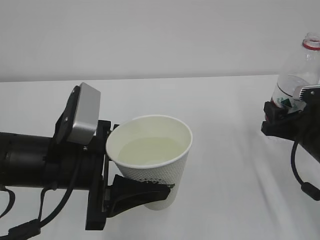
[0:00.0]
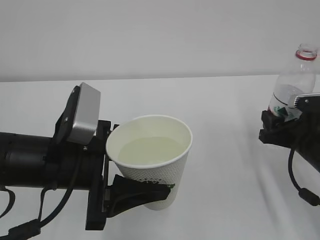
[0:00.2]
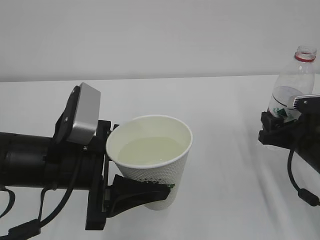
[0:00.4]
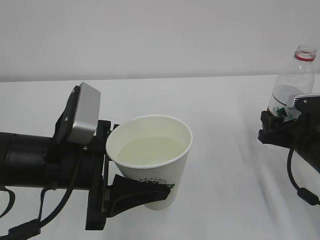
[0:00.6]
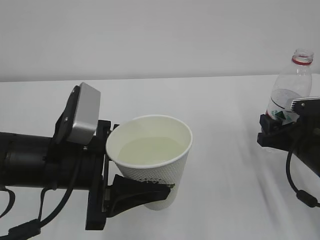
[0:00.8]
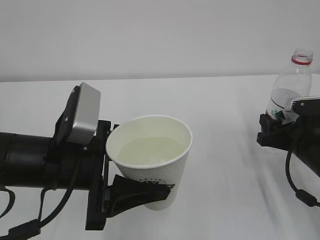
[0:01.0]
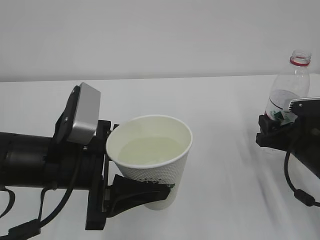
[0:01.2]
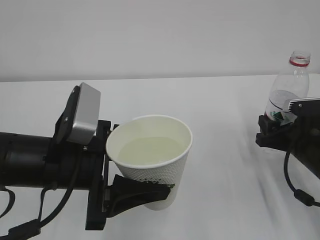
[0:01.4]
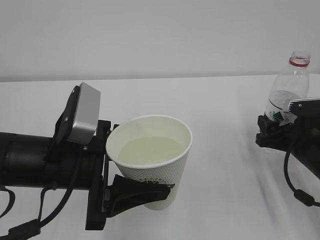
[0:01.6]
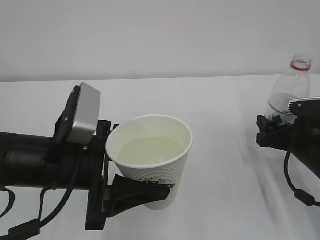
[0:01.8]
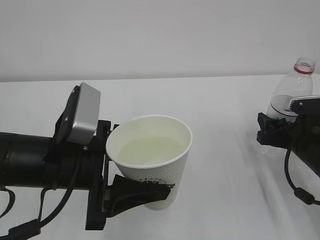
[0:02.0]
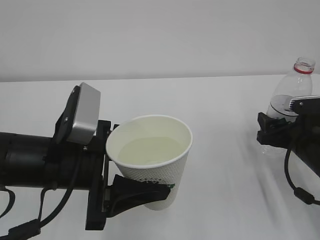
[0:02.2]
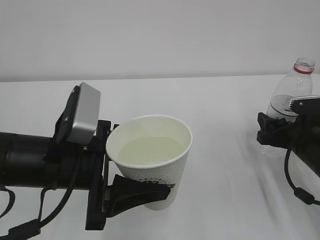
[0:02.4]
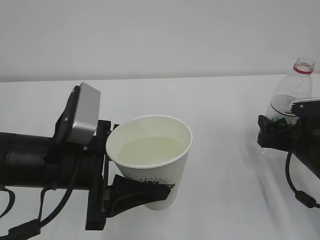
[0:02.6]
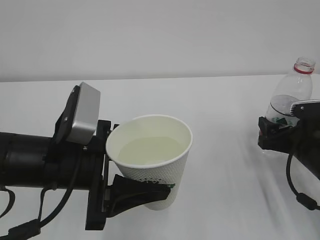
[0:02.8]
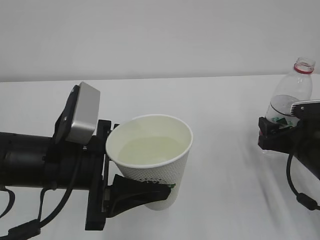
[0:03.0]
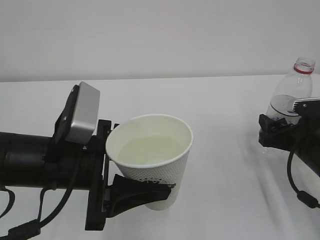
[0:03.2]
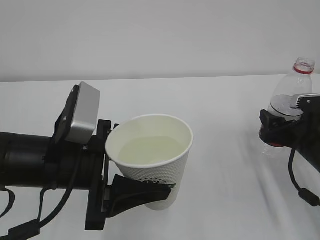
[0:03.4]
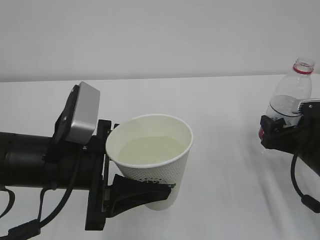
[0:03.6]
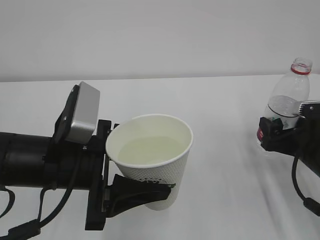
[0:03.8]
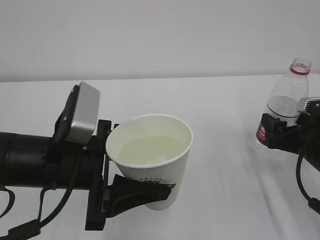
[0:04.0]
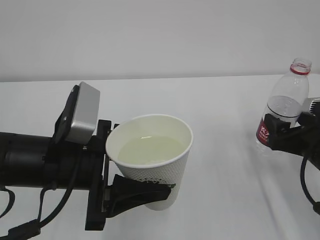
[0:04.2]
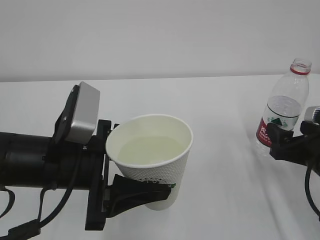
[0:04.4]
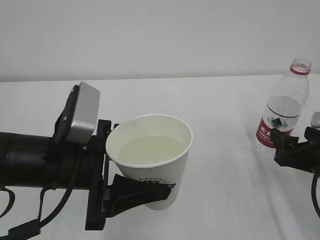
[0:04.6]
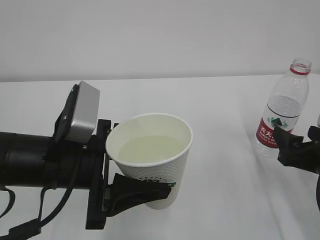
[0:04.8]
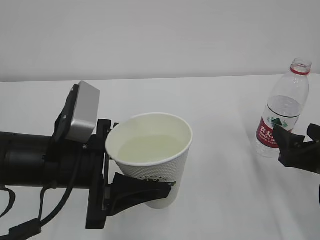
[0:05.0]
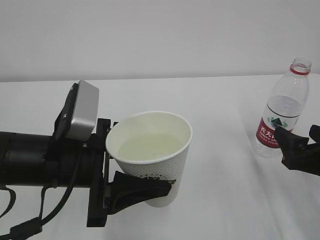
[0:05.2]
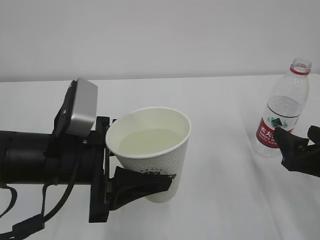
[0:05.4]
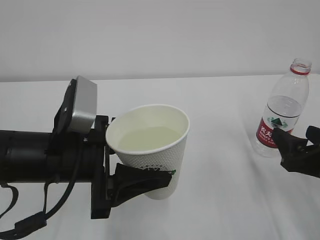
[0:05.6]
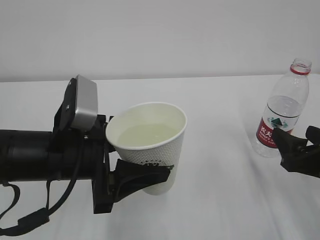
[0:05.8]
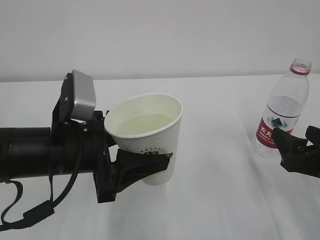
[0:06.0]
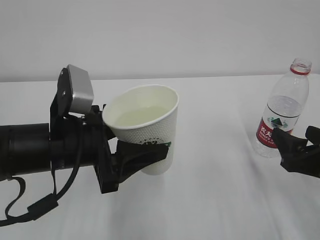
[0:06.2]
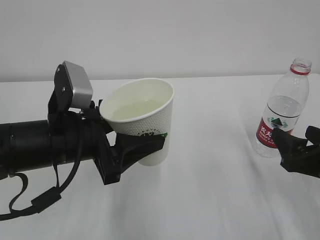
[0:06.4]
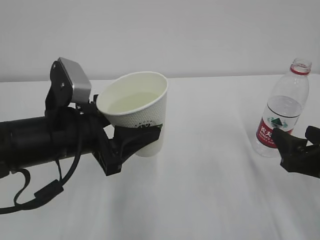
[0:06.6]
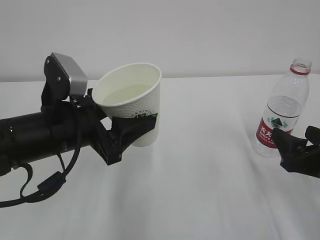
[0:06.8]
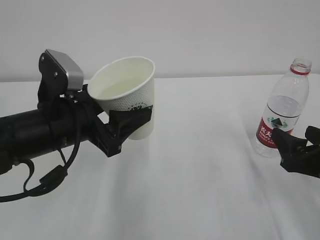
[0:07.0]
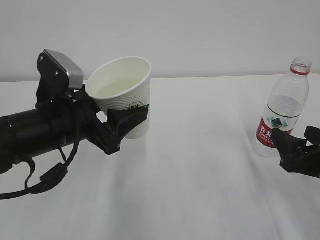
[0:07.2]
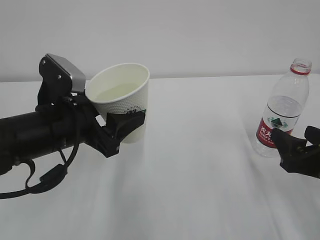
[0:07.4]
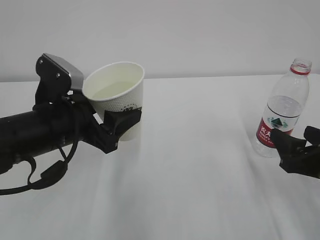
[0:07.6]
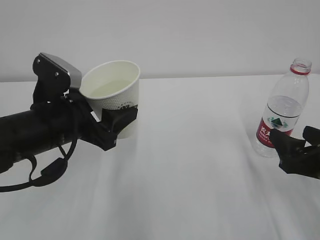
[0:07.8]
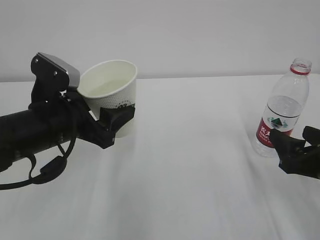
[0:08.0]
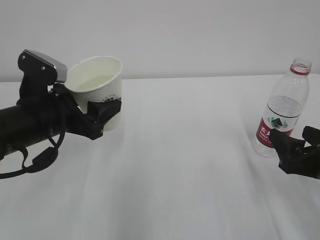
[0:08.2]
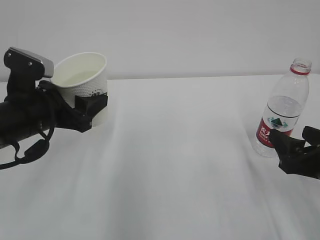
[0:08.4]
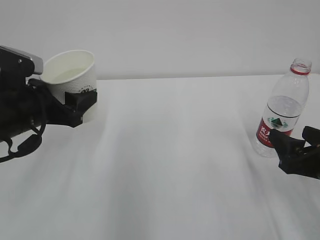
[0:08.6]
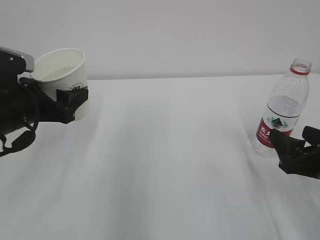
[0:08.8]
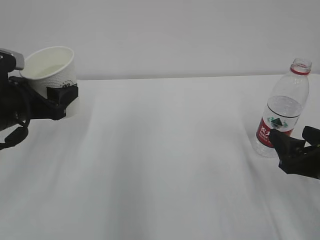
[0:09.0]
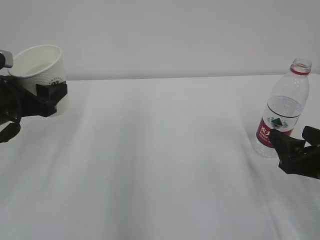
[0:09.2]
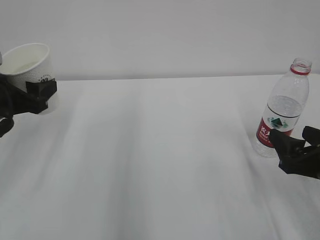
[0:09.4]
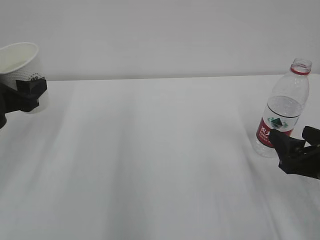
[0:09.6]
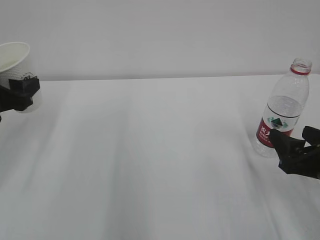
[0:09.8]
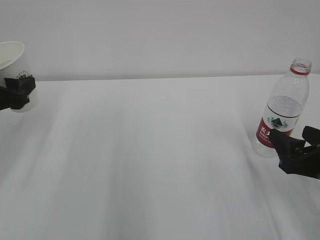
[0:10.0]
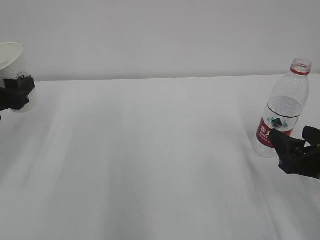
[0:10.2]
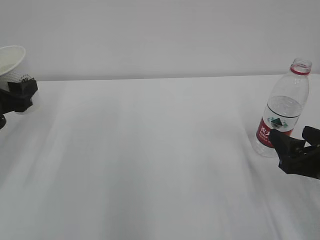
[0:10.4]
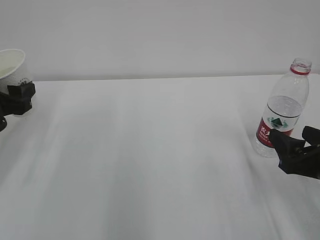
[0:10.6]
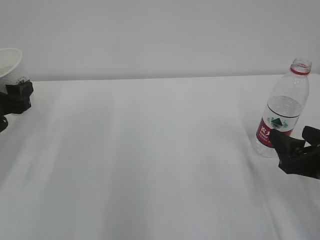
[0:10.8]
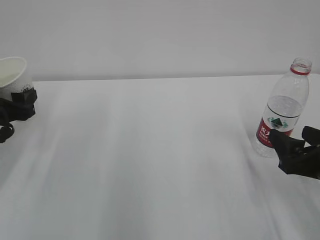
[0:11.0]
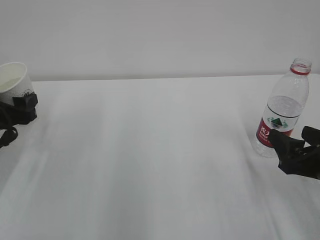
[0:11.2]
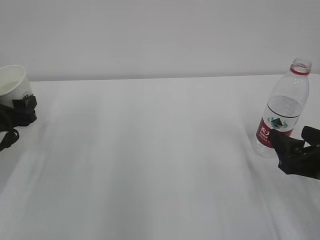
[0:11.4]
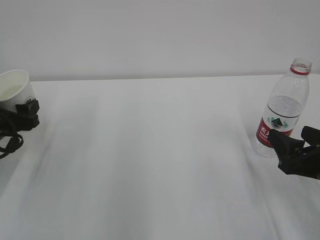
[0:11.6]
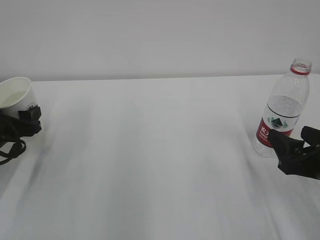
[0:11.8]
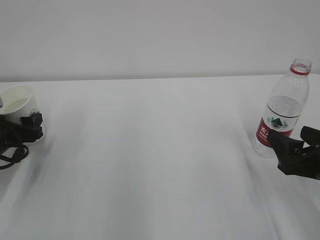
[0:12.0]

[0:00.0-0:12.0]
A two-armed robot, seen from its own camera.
0:00.0 to 0:01.6: The grippers move only a little.
0:01.6 to 0:03.0: The right gripper opens up.
0:03.0 to 0:04.4: The grippers stay close to where they were, moving slightly.
0:04.4 to 0:06.0: There are only small adjustments of the grippers.
0:07.6 to 0:09.0: The left gripper travels to the left by some 10 cm.
0:09.0 to 0:10.4: The left gripper goes some 5 cm to the left.
0:10.4 to 0:12.0: The left gripper shifts about 10 cm downward.

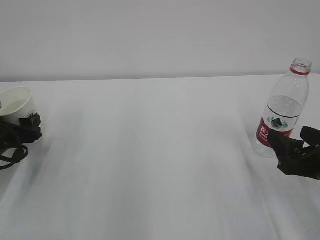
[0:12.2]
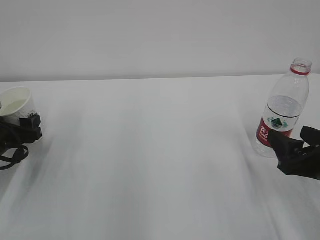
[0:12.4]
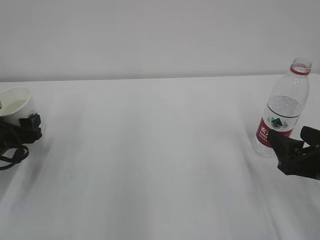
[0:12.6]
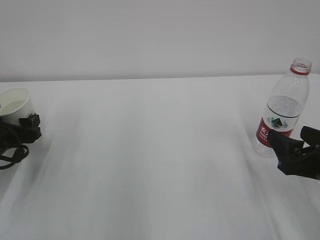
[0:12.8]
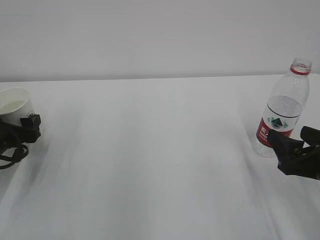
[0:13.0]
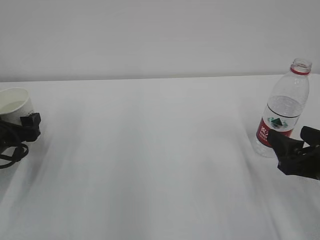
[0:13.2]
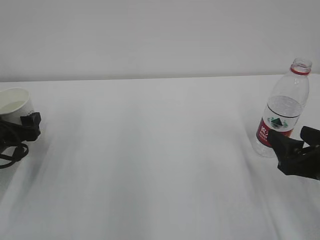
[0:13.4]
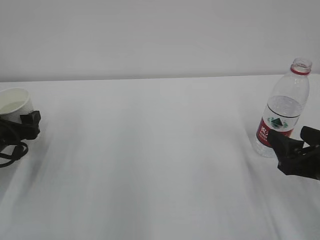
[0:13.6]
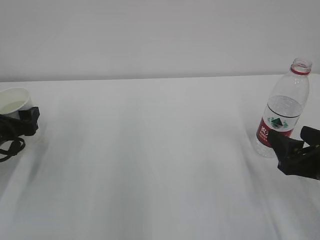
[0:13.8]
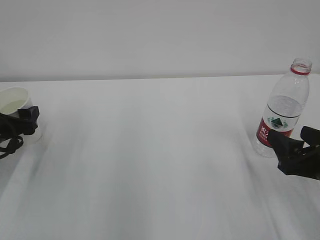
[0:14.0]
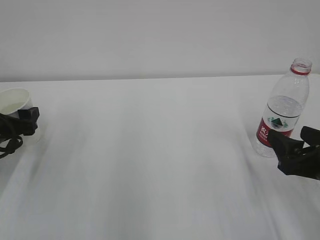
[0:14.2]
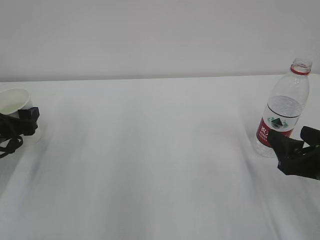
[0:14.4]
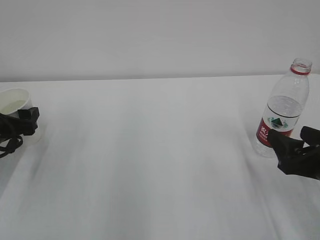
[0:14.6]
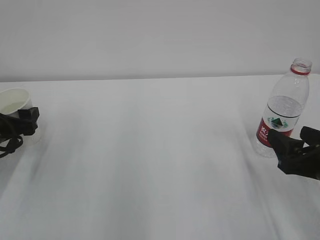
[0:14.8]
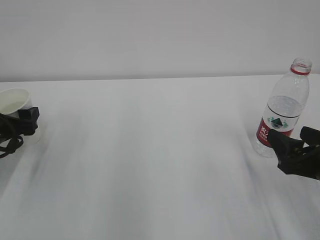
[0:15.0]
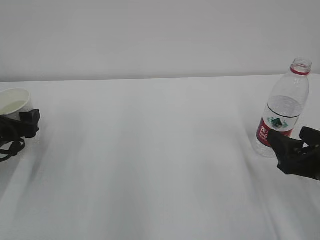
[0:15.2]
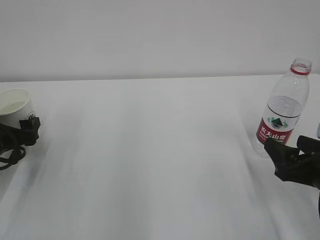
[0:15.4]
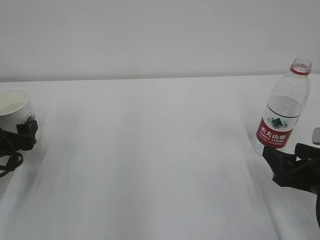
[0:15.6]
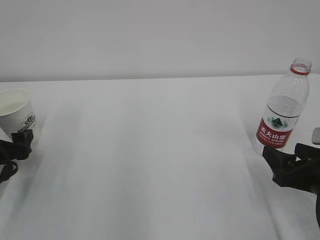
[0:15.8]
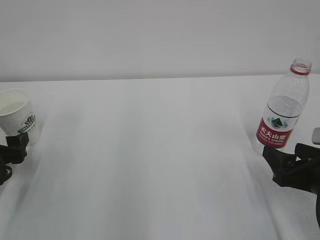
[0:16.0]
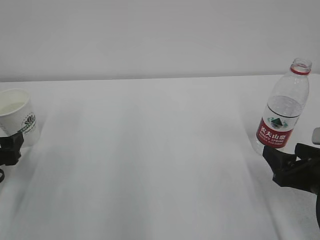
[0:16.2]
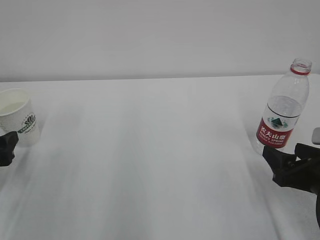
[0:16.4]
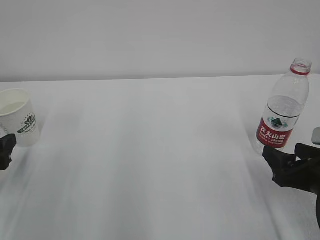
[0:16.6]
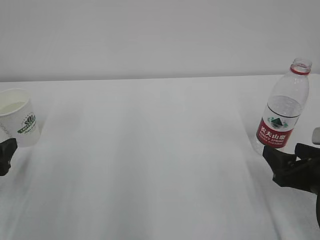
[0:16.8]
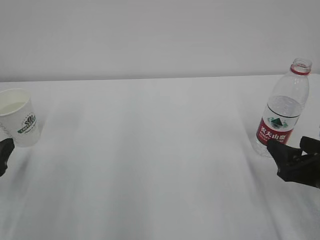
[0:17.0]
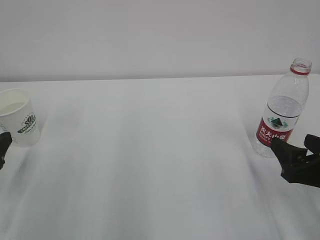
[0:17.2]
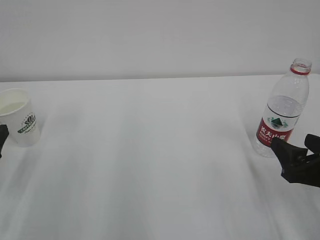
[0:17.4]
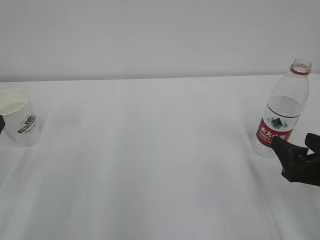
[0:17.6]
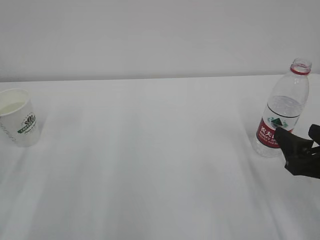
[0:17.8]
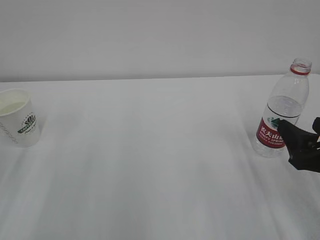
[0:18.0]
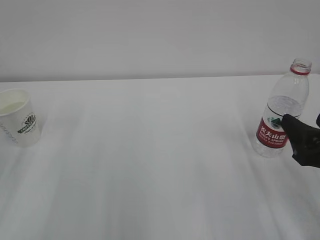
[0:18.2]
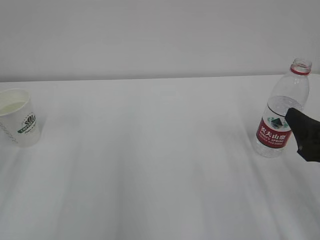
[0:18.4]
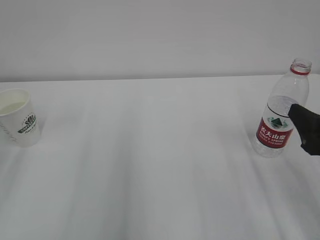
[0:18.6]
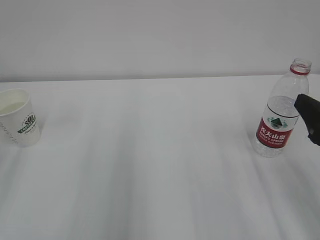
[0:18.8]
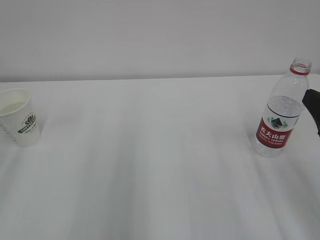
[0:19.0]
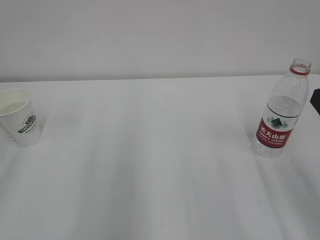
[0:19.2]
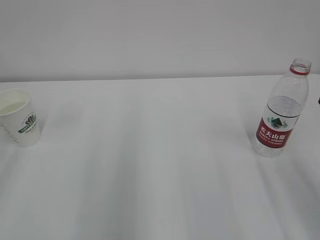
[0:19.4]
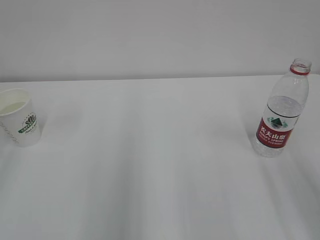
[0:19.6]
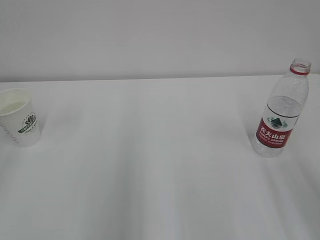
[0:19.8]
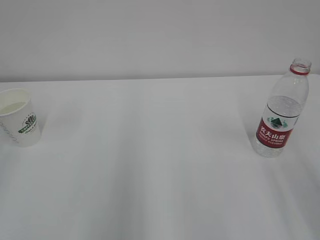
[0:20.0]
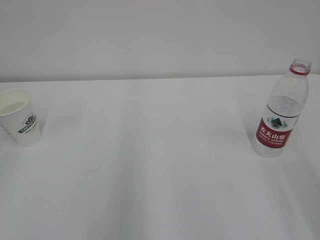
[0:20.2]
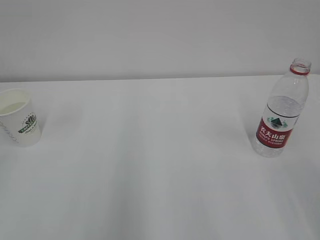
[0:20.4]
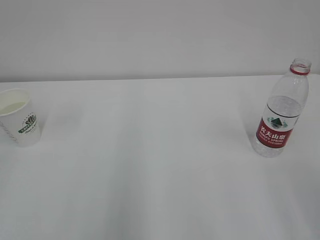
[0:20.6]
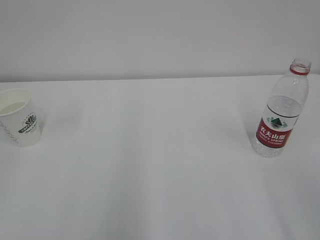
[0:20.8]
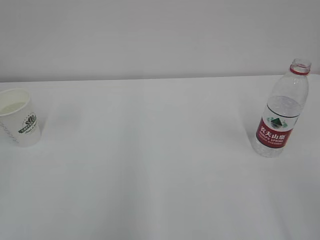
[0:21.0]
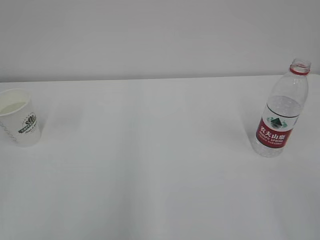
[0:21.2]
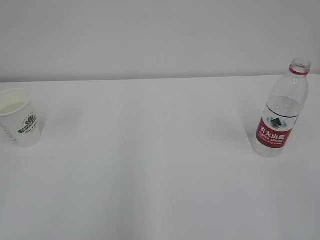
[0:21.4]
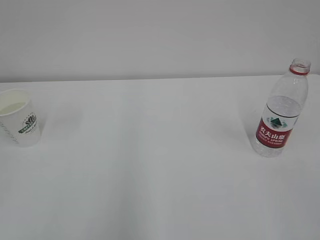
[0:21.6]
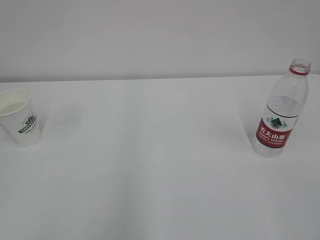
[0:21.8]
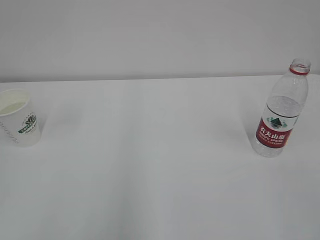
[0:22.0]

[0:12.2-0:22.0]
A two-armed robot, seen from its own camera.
0:12.2 to 0:13.6: The left gripper opens up.
0:13.6 to 0:15.0: The grippers move only a little.
0:15.0 to 0:16.4: The left gripper travels backward by roughly 10 cm.
0:16.4 to 0:17.8: The left gripper travels upward by about 5 cm.
0:17.8 to 0:19.2: The right gripper travels upward by approximately 10 cm.

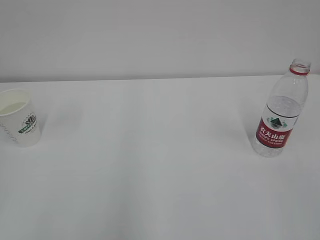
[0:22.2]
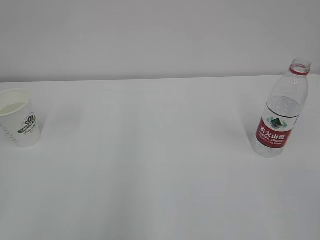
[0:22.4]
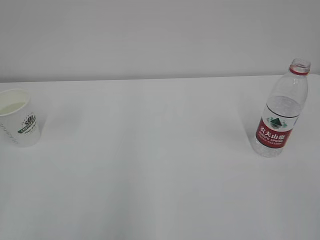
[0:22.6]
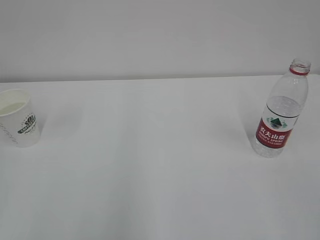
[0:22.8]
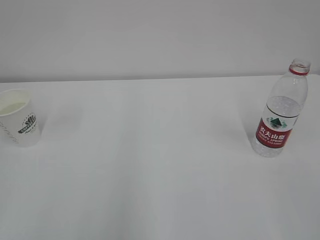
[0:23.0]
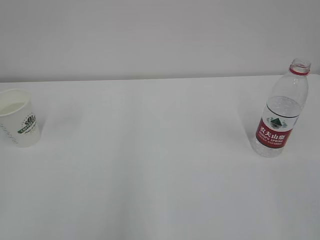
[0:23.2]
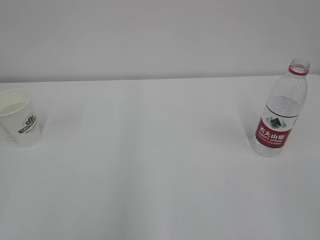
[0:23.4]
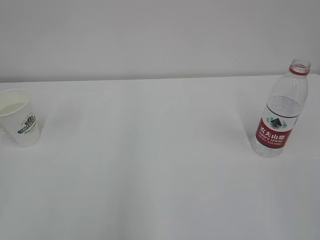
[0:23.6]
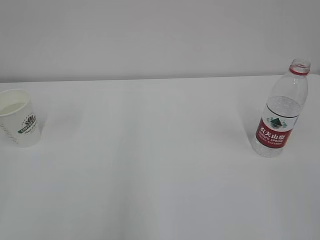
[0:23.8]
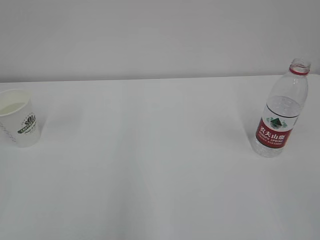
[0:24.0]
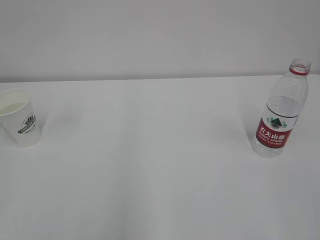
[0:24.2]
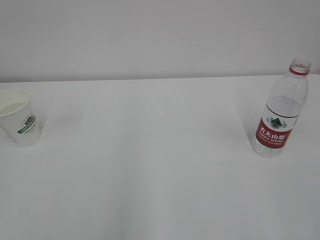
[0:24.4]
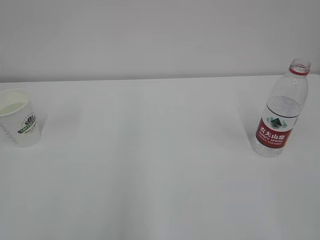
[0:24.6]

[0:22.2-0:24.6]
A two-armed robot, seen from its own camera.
0:23.4 to 0:24.6: Neither gripper changes place.
